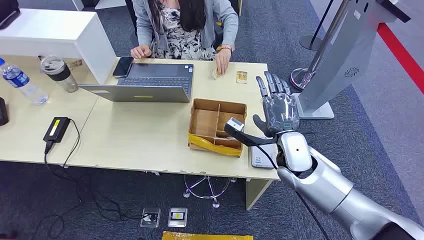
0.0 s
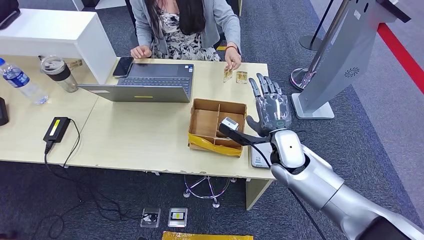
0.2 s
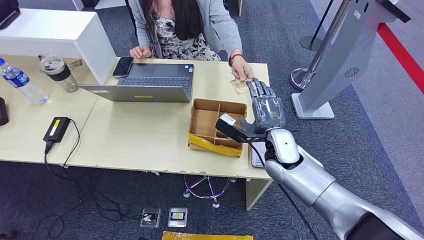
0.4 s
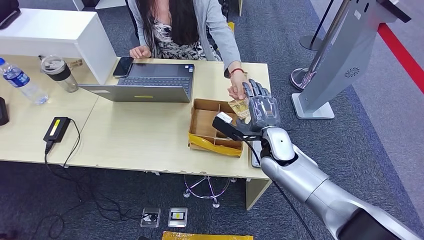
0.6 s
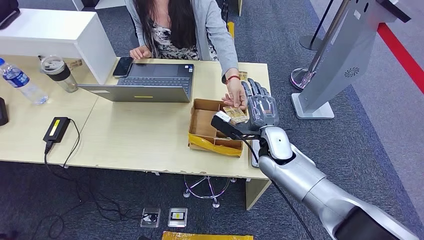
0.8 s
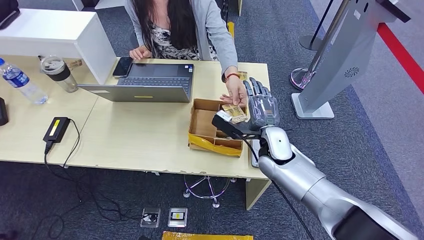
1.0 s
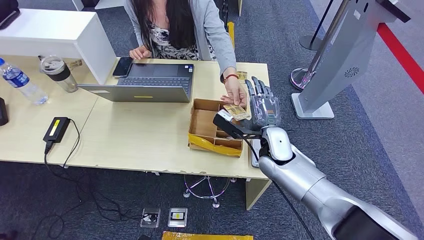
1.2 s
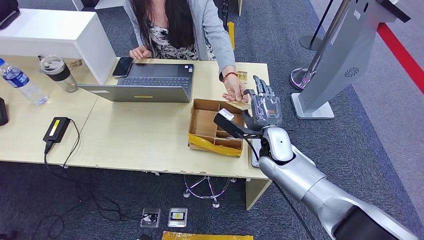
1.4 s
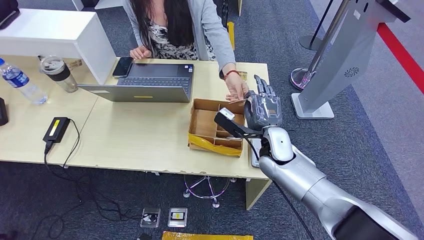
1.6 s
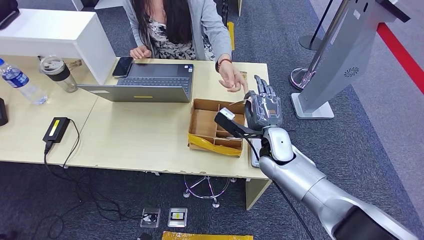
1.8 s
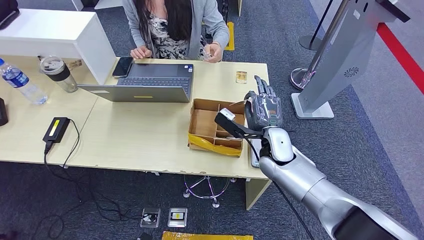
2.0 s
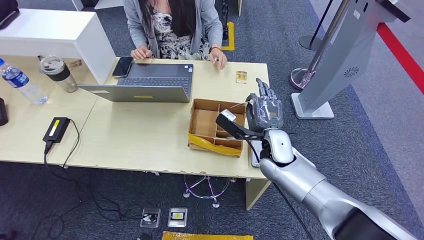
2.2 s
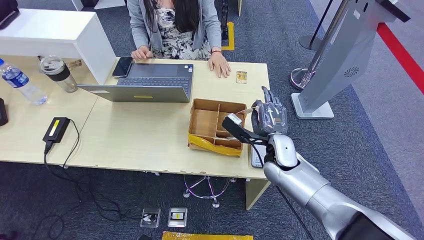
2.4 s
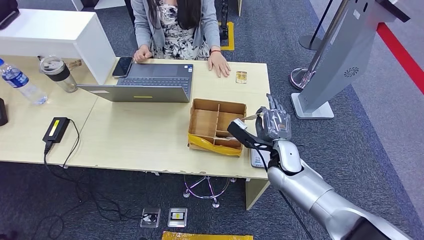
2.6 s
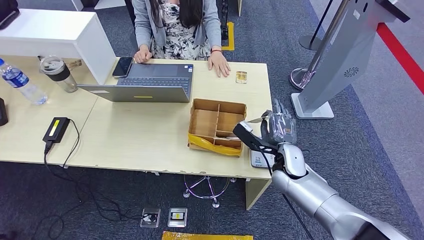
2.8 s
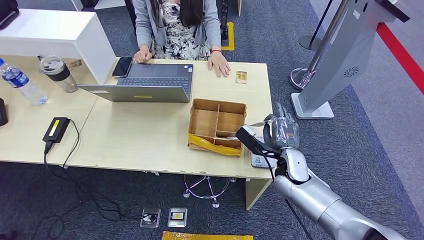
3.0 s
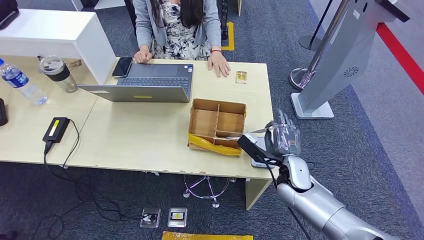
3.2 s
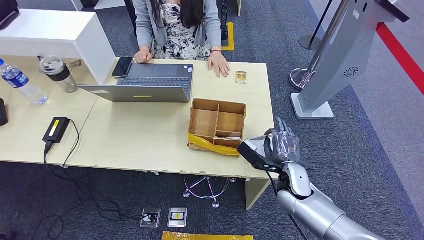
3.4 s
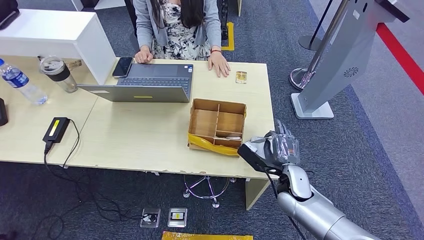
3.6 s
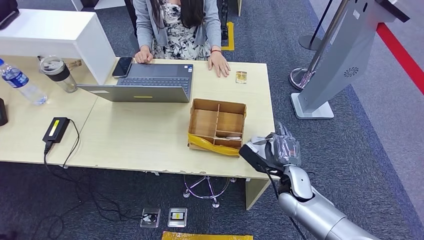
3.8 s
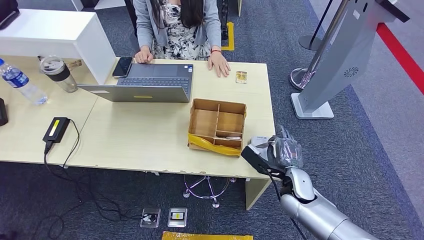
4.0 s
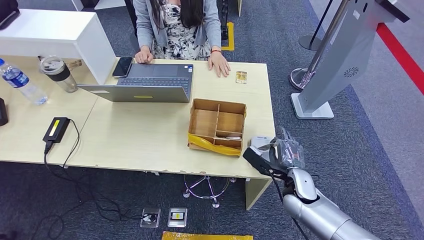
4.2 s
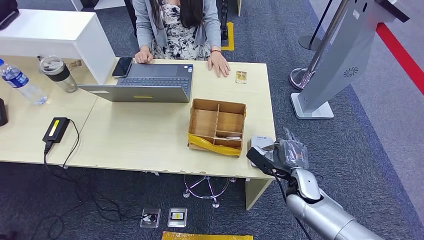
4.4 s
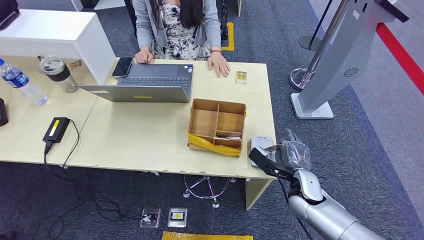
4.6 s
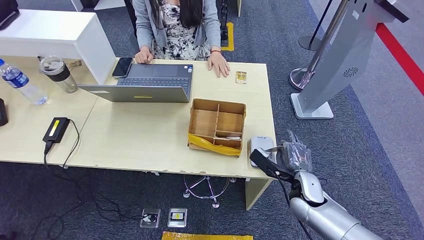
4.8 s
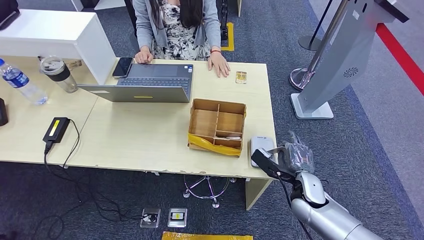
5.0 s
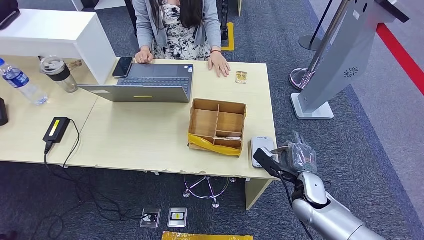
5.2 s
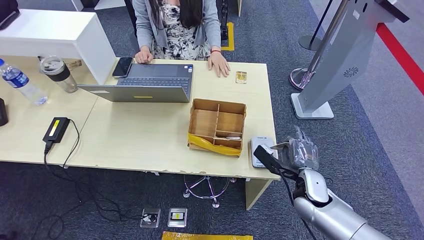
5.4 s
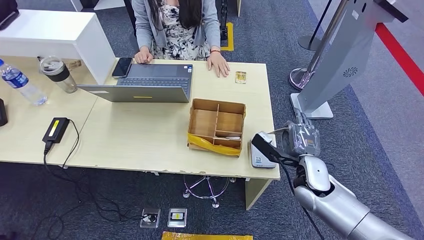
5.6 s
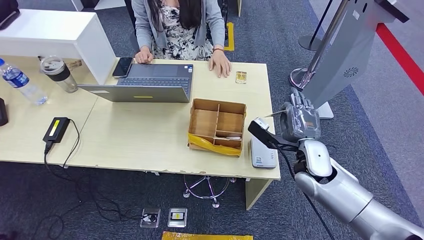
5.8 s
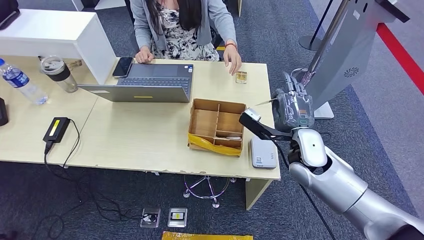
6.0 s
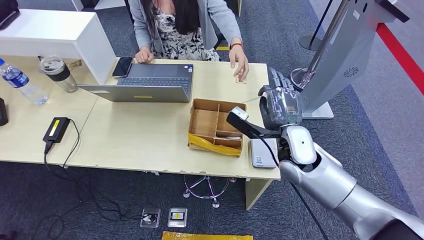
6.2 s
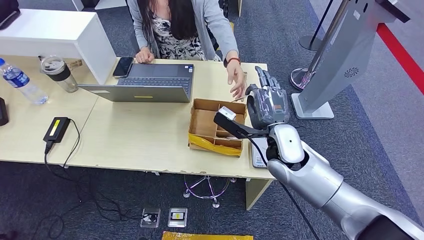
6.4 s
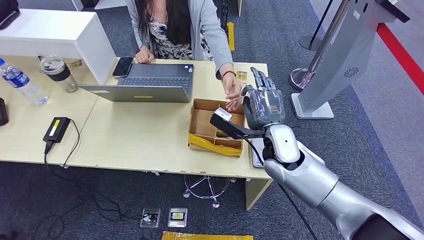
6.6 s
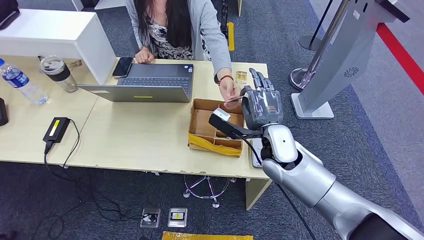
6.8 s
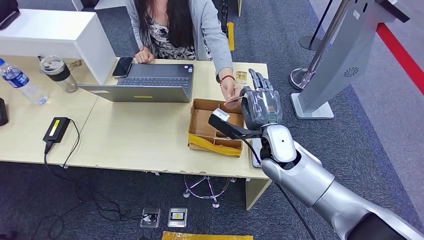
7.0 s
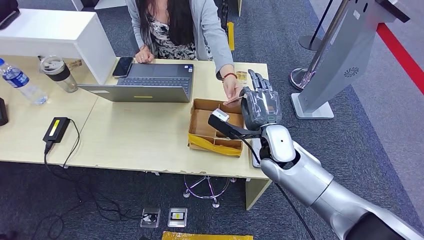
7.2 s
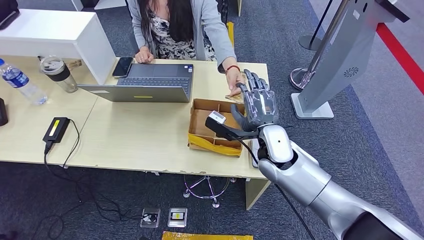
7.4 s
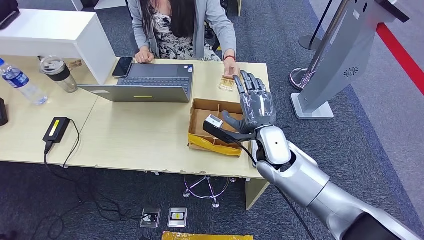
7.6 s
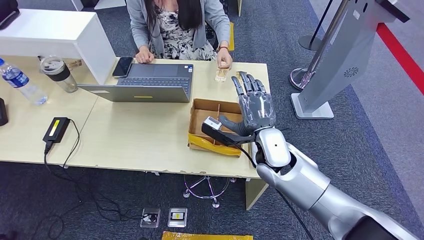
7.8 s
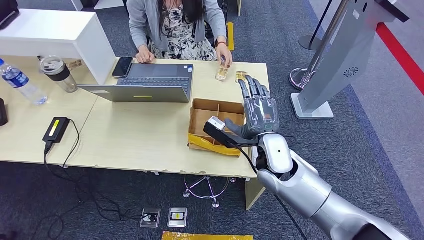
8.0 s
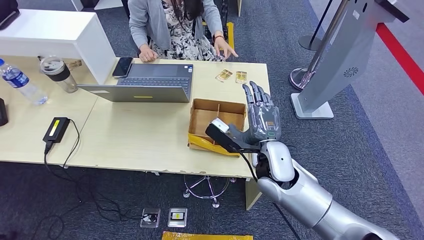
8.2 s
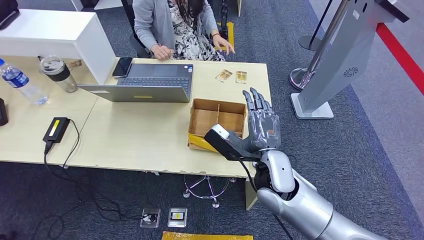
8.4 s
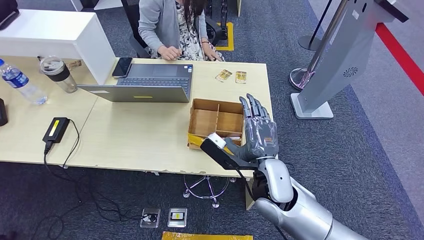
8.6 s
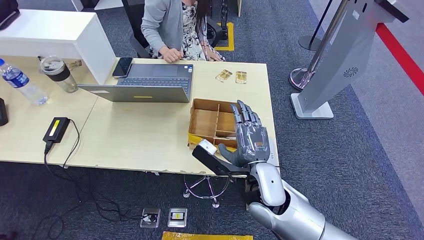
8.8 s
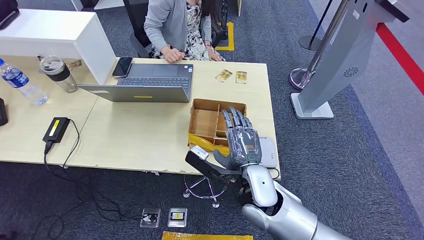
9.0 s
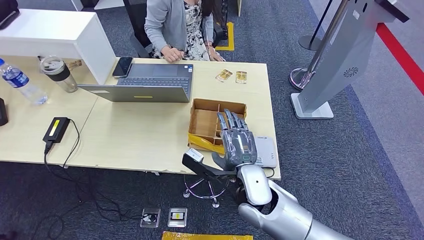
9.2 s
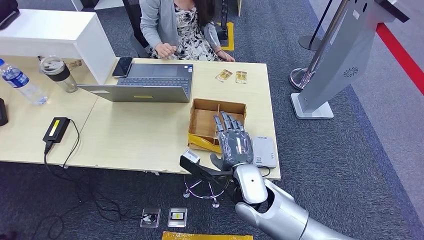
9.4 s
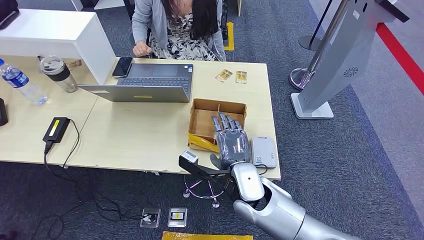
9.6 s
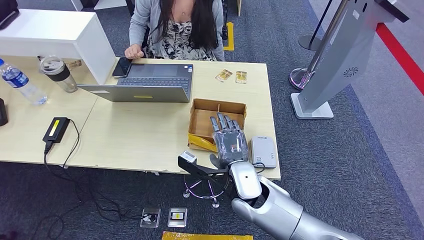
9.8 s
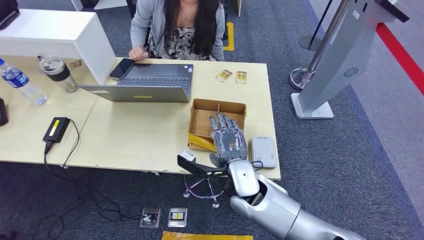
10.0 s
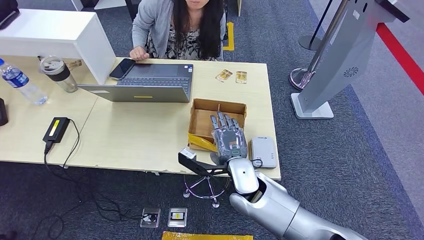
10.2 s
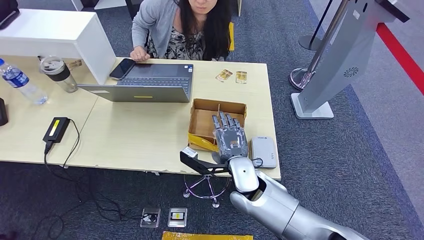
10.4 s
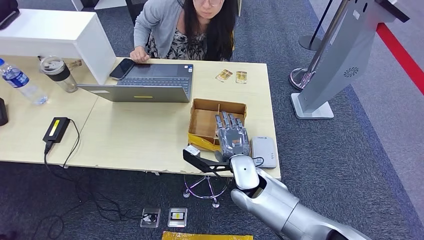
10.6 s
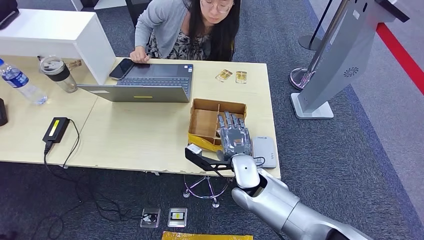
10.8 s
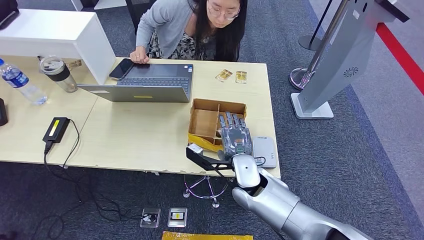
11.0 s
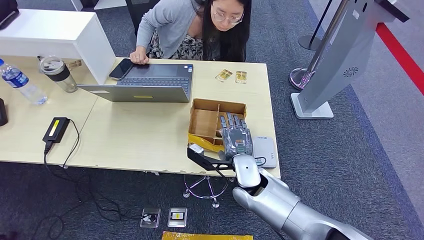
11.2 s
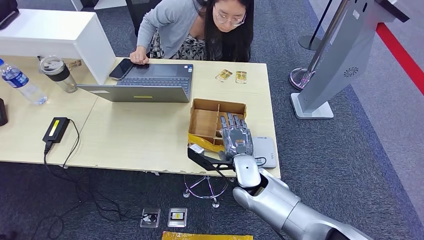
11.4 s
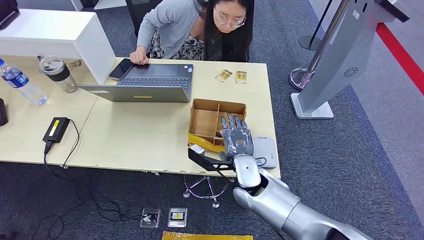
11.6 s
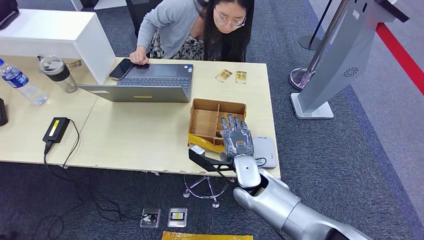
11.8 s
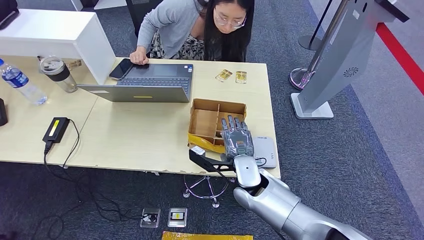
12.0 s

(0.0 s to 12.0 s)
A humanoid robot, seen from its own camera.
Step, 0.0 s - 3.8 s: Take the ID card from the person's hand.
Step, 4.0 s - 6.2 s: Place the ID card on the card reader.
Step, 6.6 s - 10.2 s: Hand the ID card to the person.
1.6 s - 3.0 s: The right hand heads to the right and downward, covering about 10 cm.
3.0 s - 4.4 s: The right hand changes place by approximately 5 cm.
4.4 s - 6.0 s: The right hand is displaced upward and forward by some 15 cm.
6.0 s - 7.6 s: The right hand moves to the left, some 10 cm.
7.6 s - 9.0 s: The right hand goes about 10 cm backward.
9.0 s - 10.4 s: The hands make only small movements.
10.4 s - 12.0 s: There are only small adjustments of the hands.

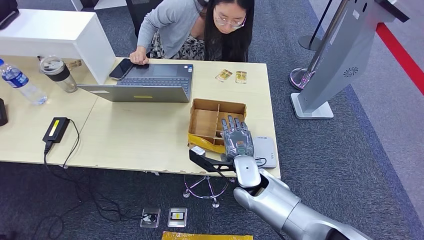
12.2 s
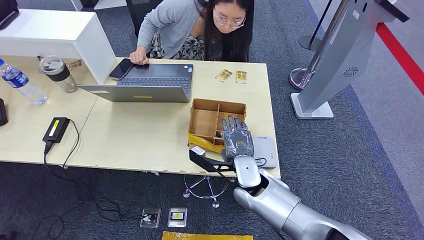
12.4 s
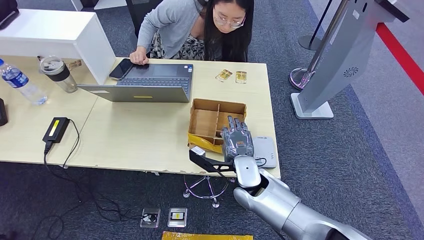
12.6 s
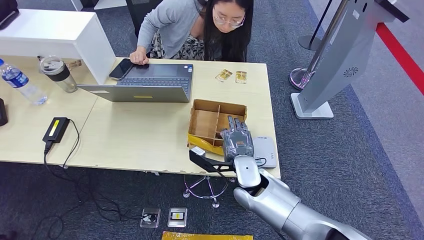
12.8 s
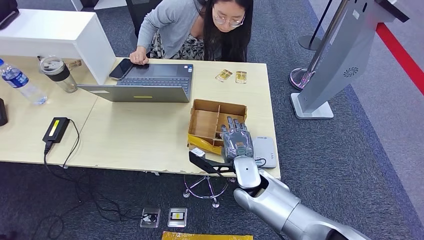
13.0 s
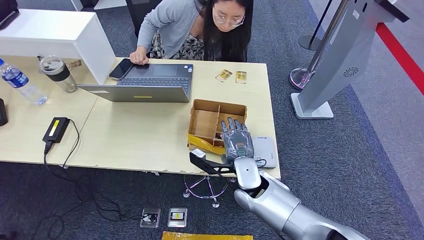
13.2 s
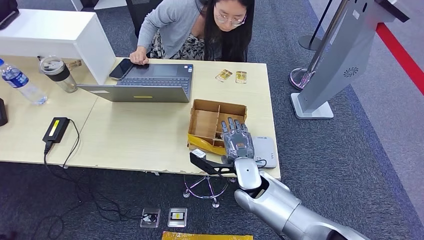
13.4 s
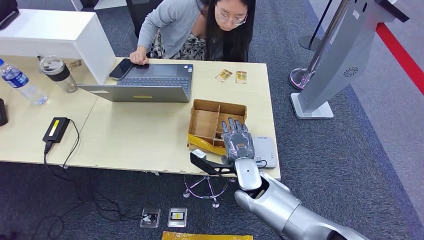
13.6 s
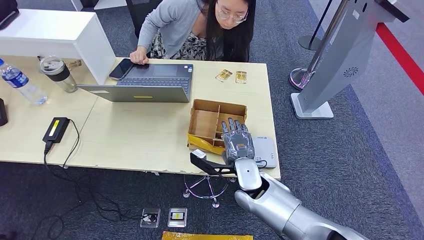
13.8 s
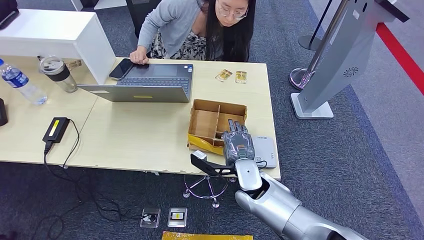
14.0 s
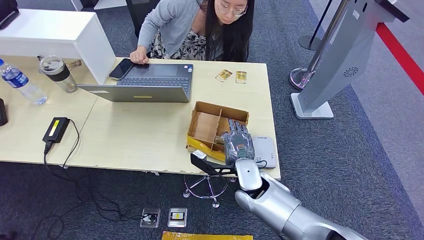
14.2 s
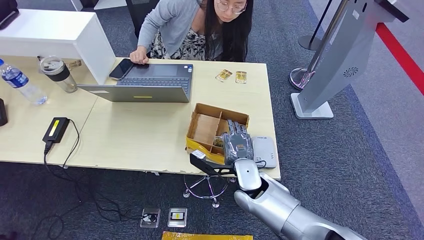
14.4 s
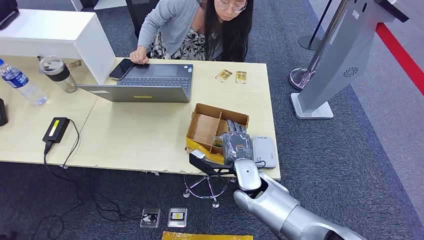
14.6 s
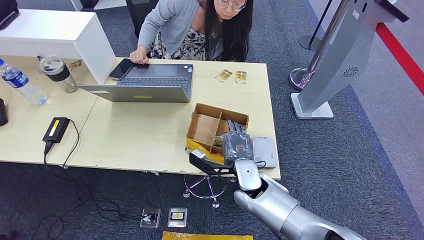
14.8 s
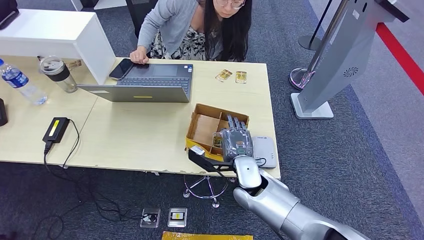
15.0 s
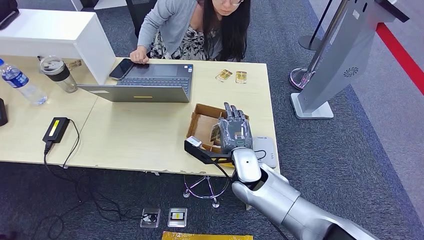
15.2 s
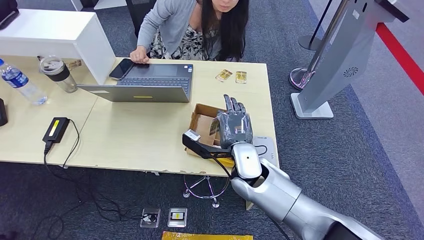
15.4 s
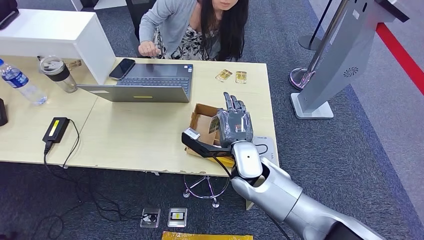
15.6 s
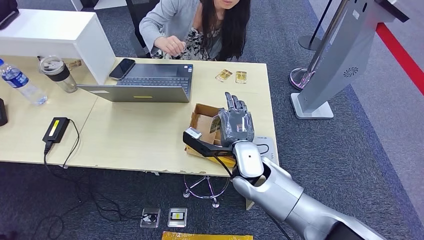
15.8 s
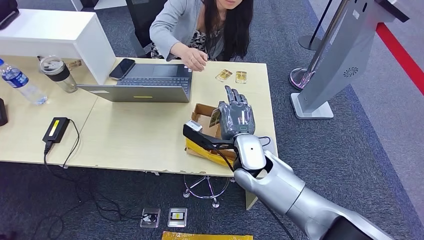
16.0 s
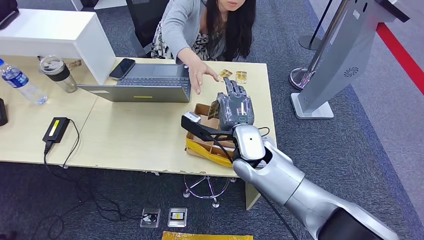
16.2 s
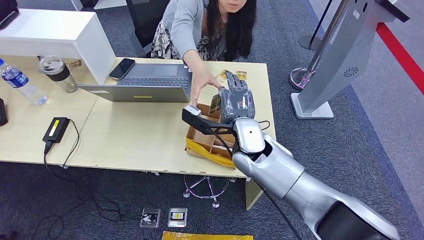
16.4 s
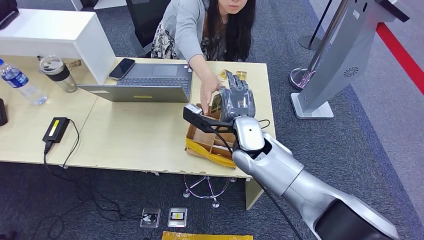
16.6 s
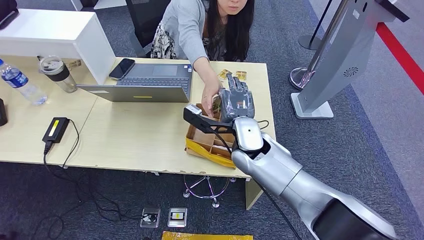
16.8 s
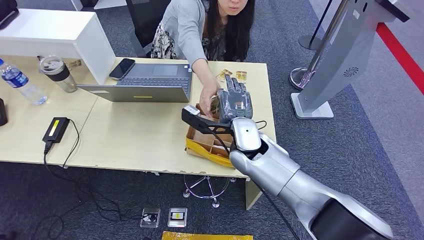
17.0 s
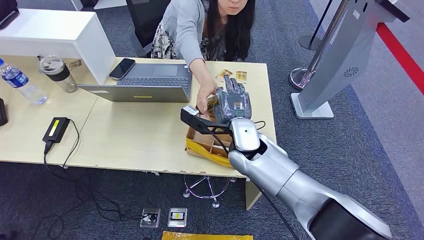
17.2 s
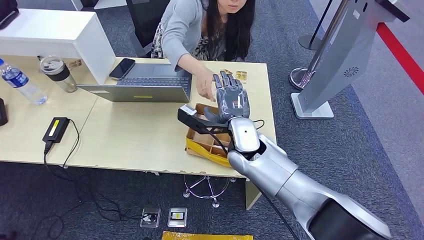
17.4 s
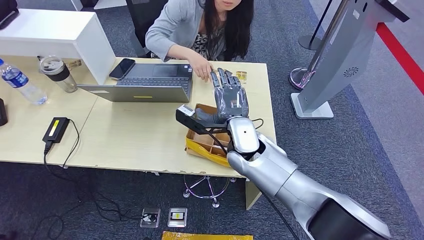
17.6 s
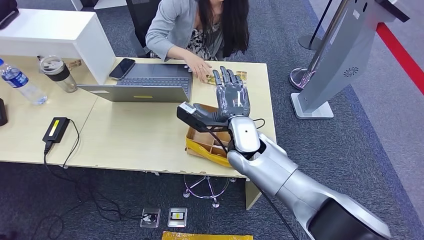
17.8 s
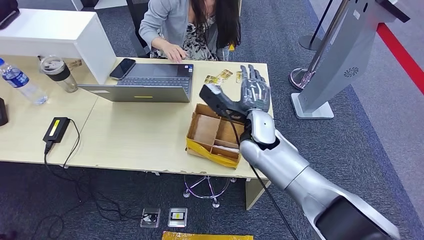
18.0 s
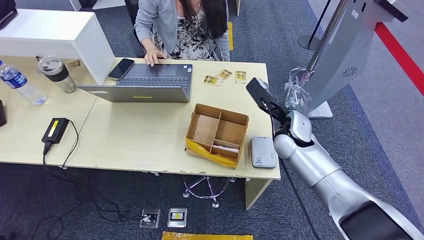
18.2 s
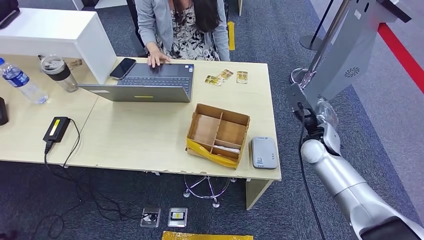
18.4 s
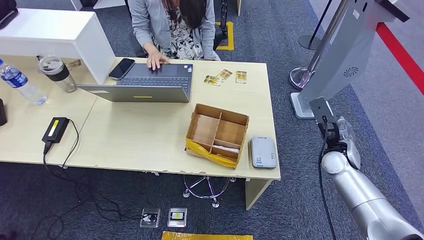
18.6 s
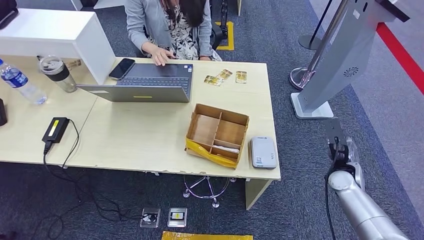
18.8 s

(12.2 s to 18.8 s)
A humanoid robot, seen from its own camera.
Step, 12.2 s - 17.0 s: Pick up the room key from the key card box.
12.2 s - 13.8 s: Both hands stay about where they are.
13.8 s - 15.4 s: The right hand goes roughly 5 cm upward.
15.4 s - 17.2 s: The right hand shifts by approximately 5 cm.
17.2 s - 18.8 s: The right hand is displaced to the right and downward by some 35 cm.
